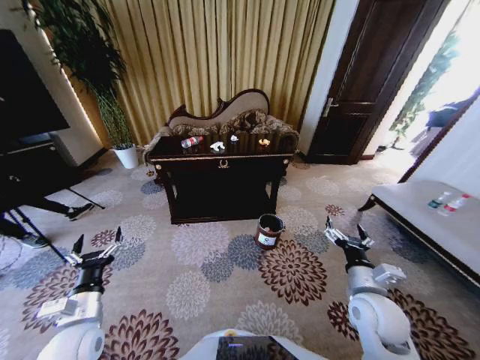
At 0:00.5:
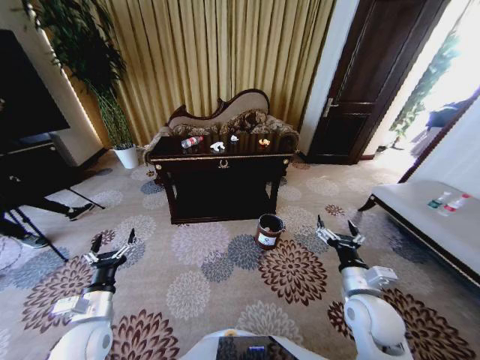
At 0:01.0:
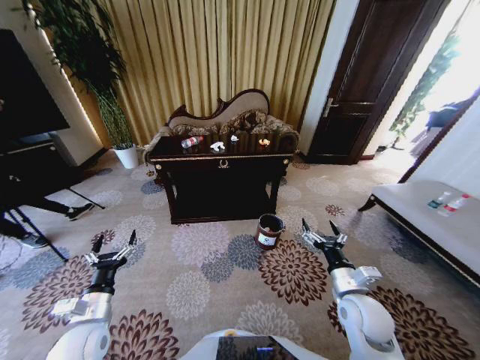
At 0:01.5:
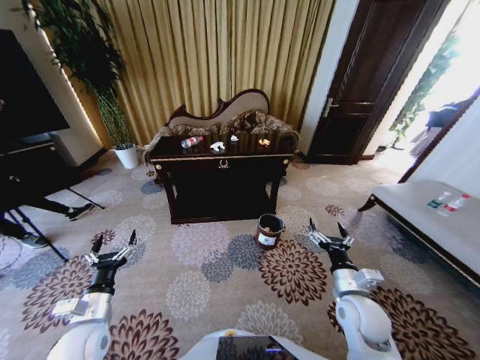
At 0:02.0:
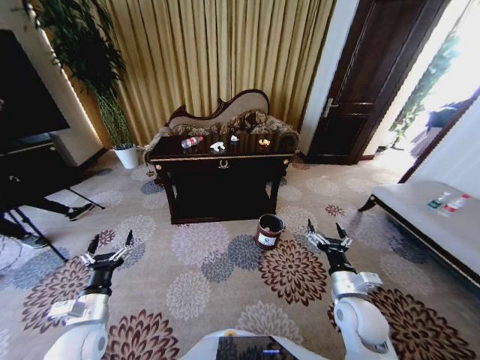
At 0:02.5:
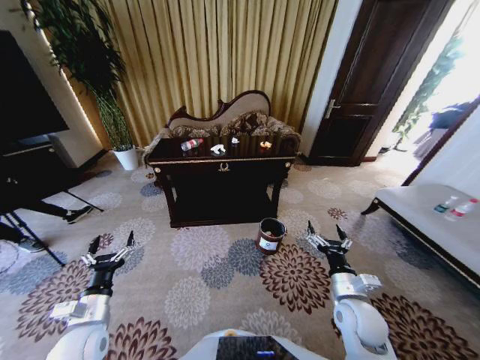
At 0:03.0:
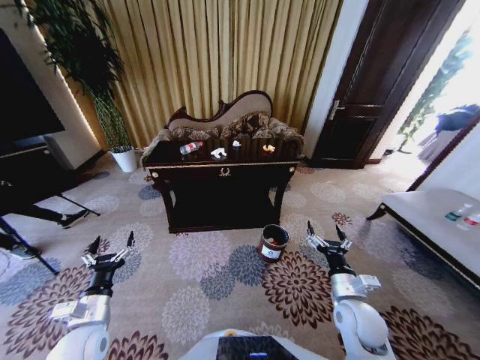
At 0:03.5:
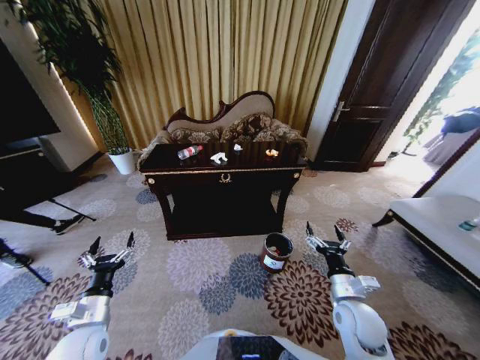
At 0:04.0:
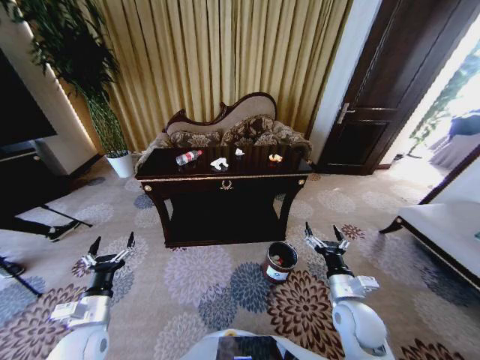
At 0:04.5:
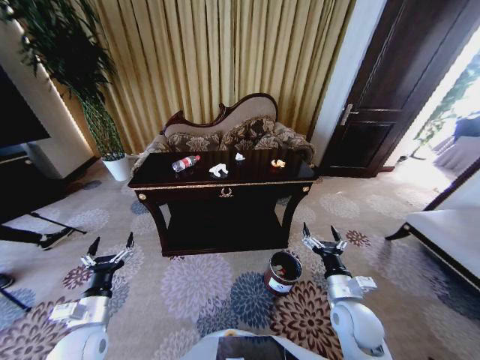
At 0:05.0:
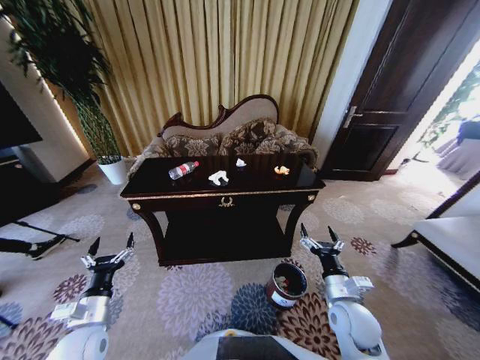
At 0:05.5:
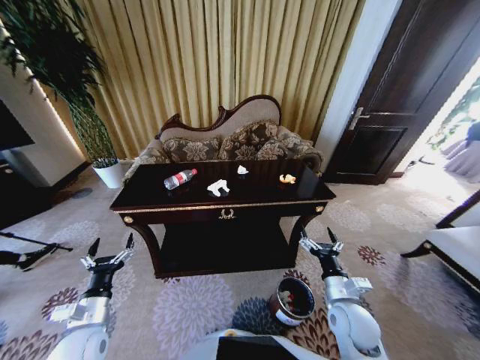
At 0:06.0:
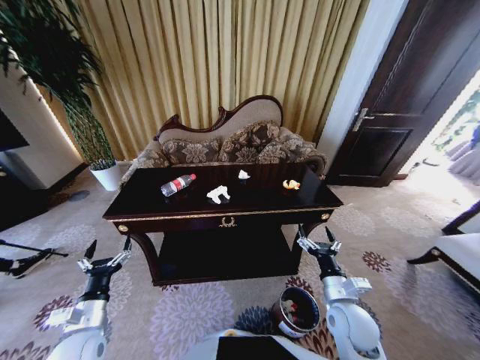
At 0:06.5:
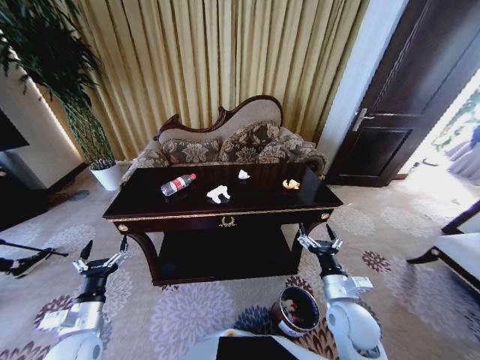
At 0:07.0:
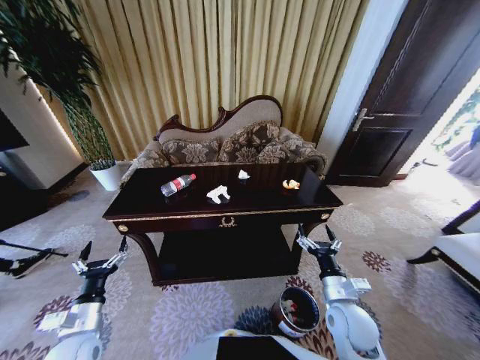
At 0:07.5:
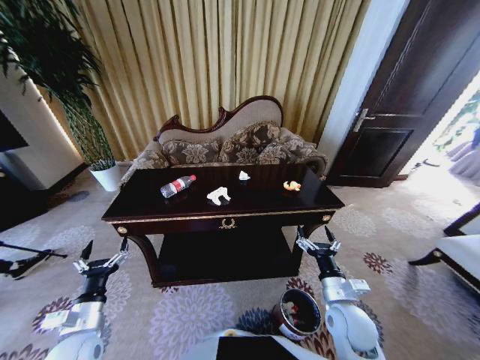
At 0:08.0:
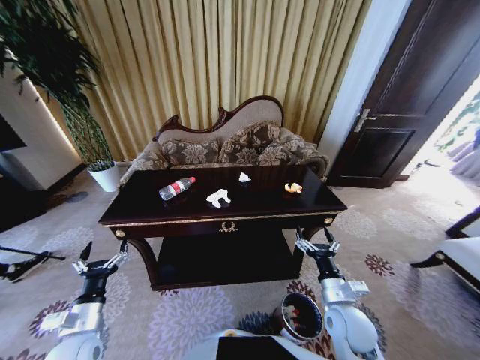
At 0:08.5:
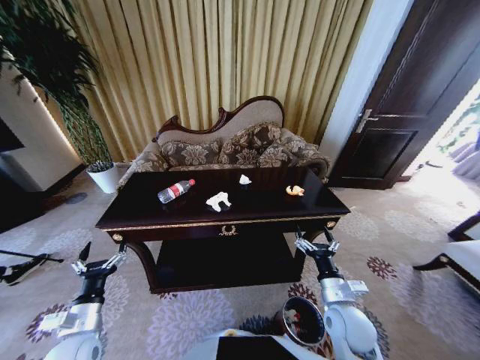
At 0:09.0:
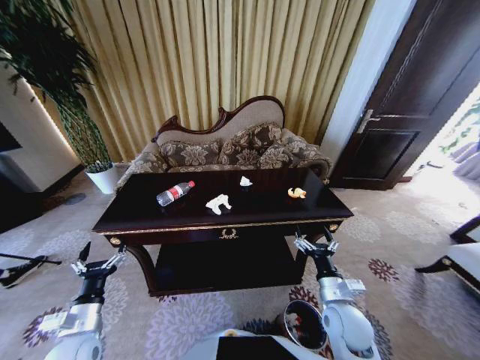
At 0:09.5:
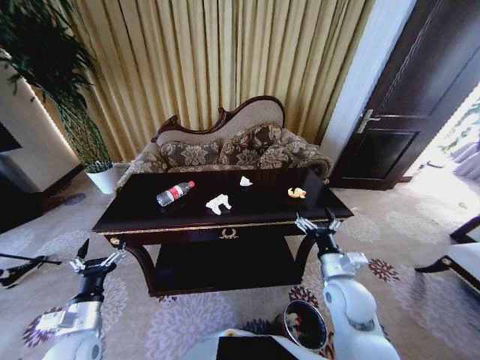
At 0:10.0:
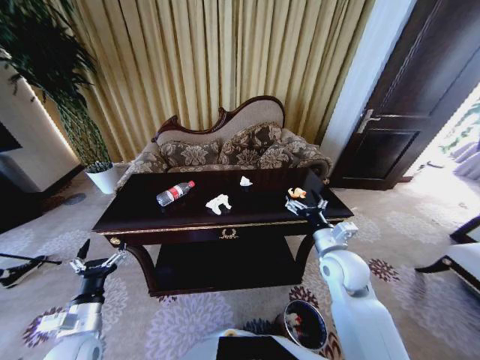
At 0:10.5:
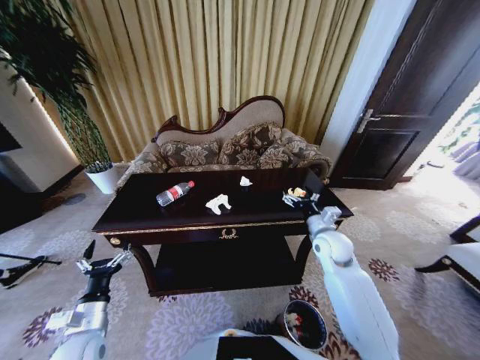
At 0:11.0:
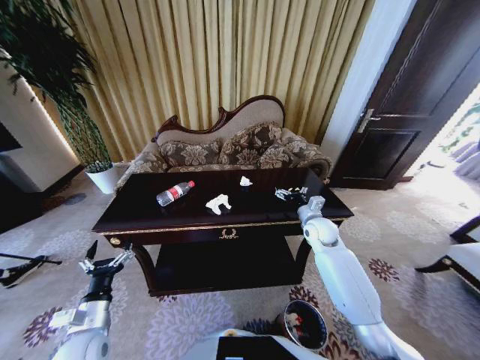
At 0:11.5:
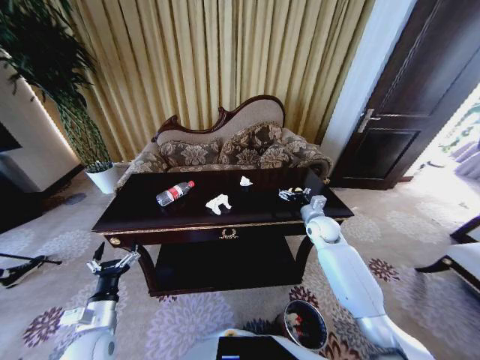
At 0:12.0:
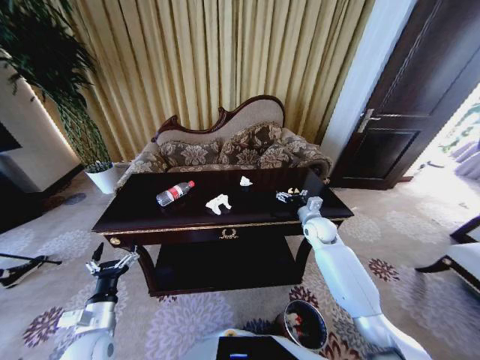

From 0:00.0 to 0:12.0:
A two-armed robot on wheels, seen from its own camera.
Task of the whole recording: Move to the front of the table and place the trash on the table into the trash bin.
From 0:06.0 to 0:08.0: The two grippers keep their place.
From 0:08.0 to 0:10.0: The right gripper goes roughly 15 cm forward and upward.
From 0:10.0 to 0:12.0: The right gripper heads forward and downward, covering about 15 cm.

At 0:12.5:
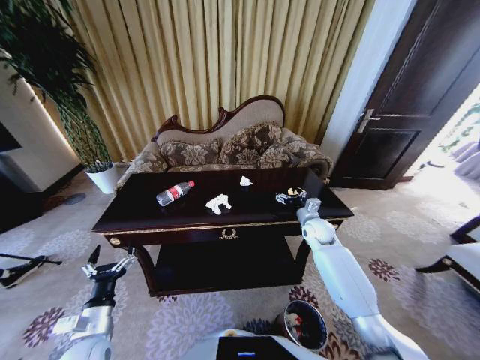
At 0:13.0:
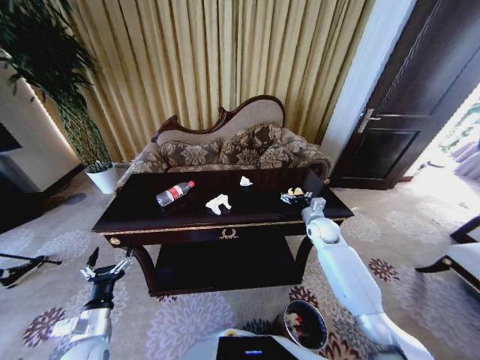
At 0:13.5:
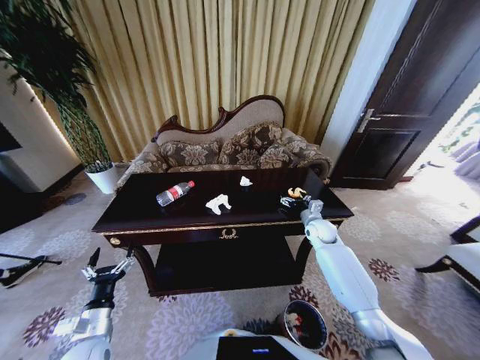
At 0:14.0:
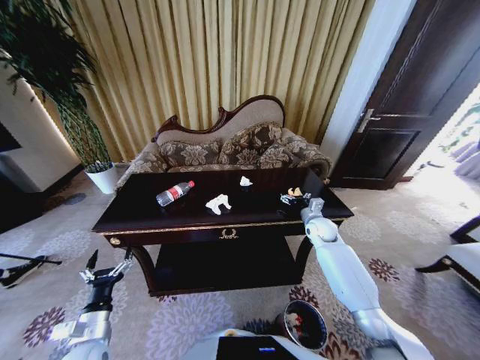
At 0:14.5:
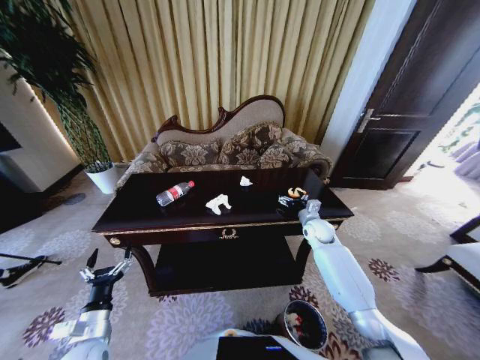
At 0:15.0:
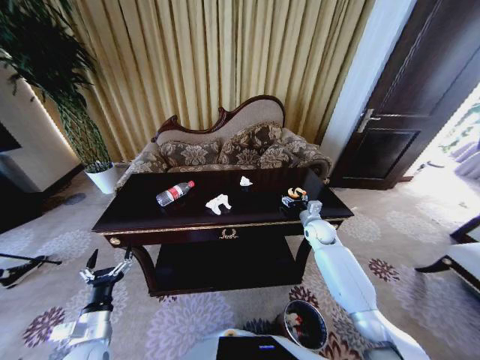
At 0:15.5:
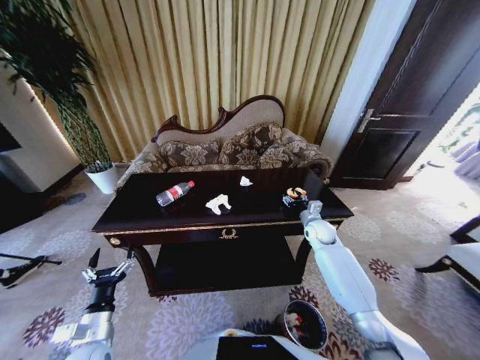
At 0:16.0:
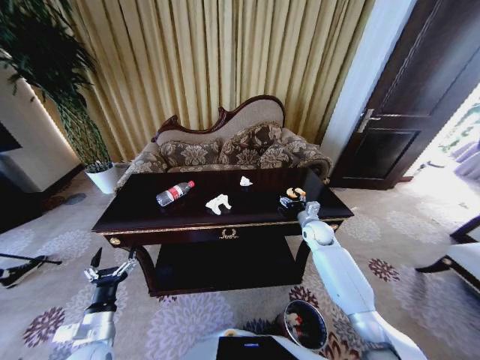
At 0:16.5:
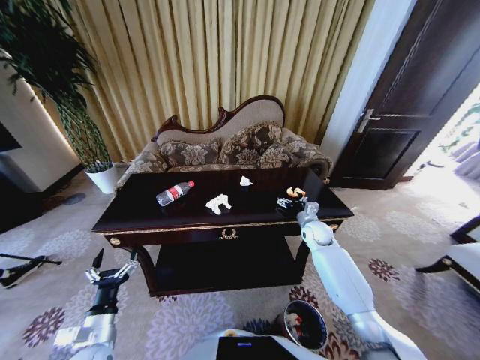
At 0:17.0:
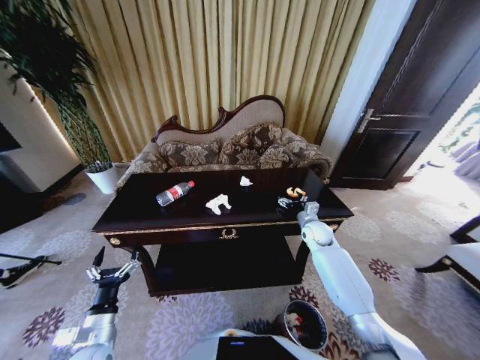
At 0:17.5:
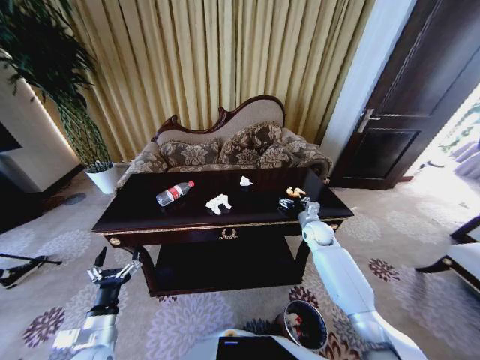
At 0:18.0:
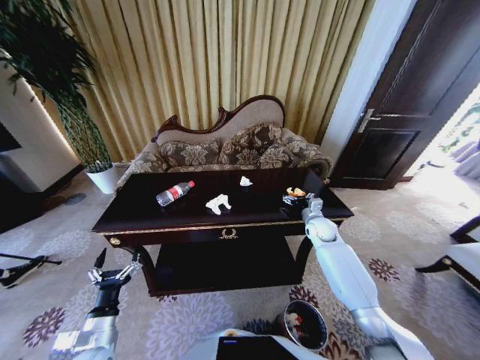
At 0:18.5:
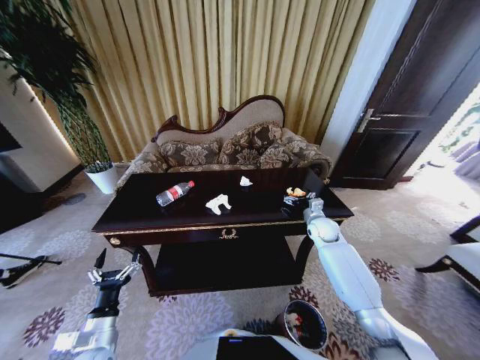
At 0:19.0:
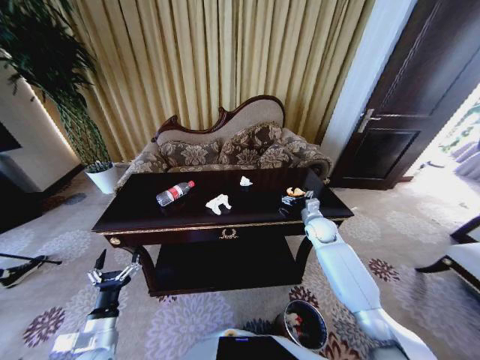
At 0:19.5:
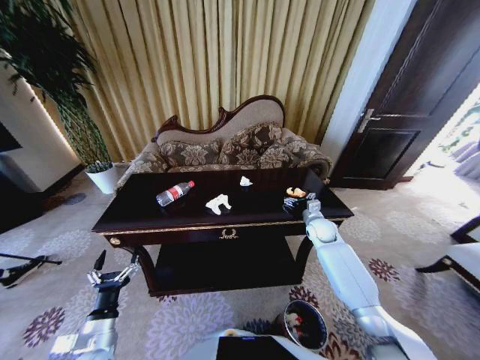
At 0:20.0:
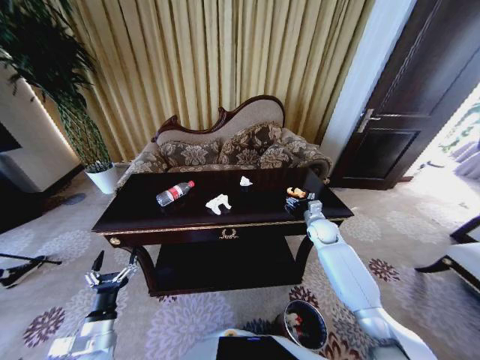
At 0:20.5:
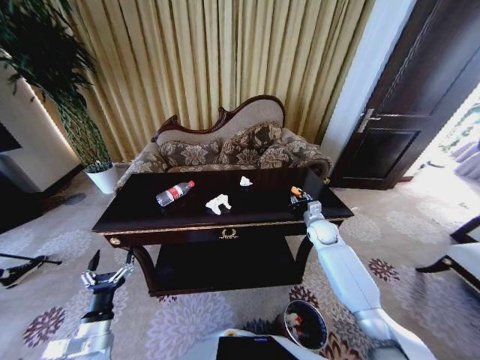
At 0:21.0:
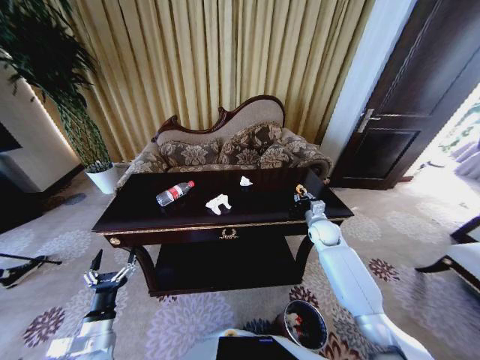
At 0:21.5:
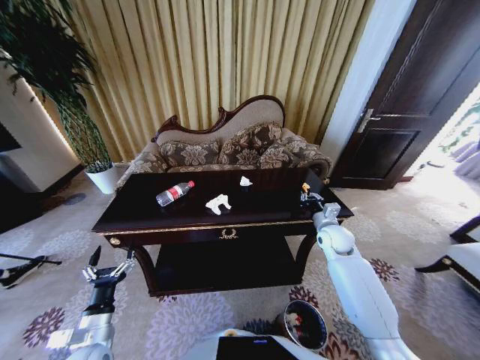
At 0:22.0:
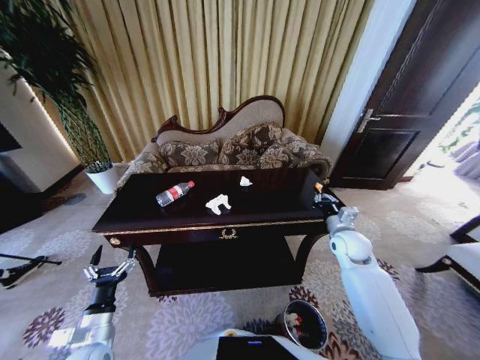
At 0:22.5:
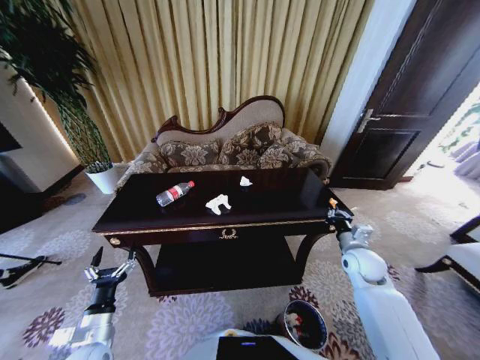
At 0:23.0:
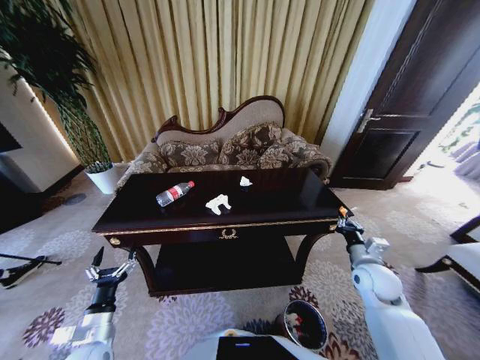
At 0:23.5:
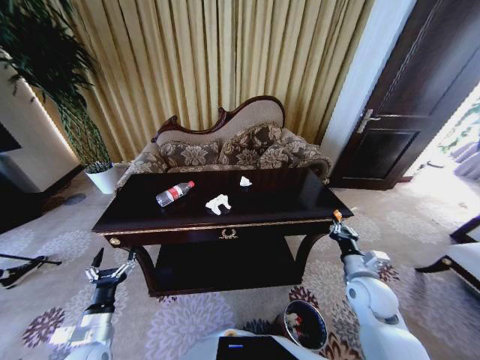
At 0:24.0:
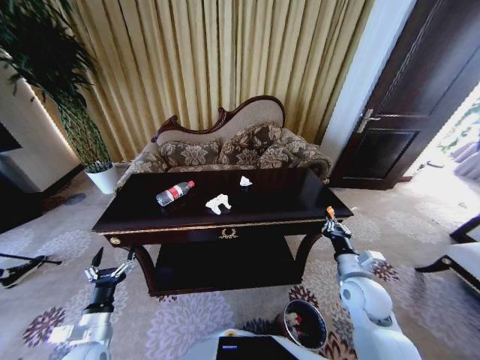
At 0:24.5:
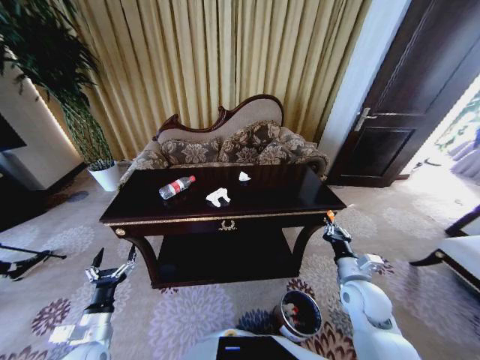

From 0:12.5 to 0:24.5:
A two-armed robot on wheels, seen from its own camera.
Task of the whole recording: Move to the front of the table and place the trash on the table into the trash bin.
From 0:12.5 to 0:18.5: The grippers make only small movements.
From 0:18.5 to 0:20.5: The right gripper closes its fingers.
From 0:20.5 to 0:22.5: The right gripper moves backward, about 15 cm.
From 0:22.5 to 0:24.5: The right gripper heads backward and to the left, covering some 10 cm.

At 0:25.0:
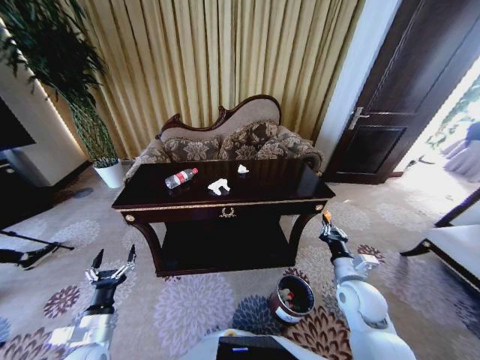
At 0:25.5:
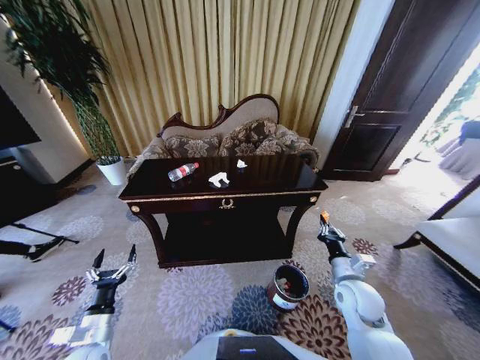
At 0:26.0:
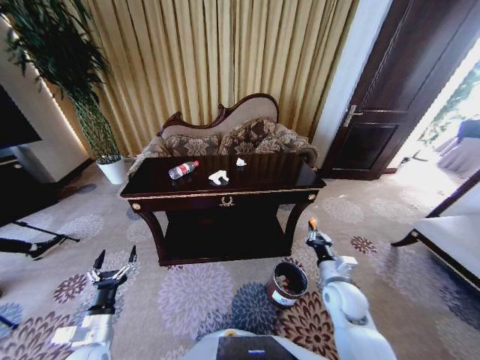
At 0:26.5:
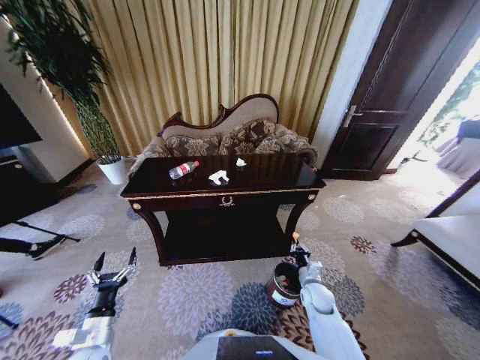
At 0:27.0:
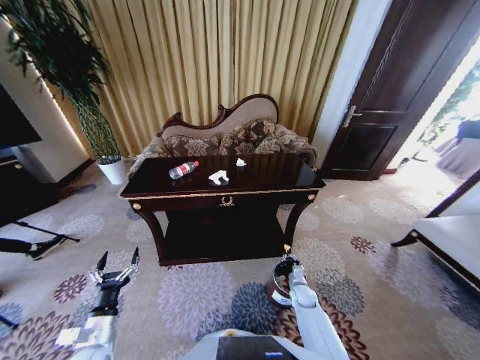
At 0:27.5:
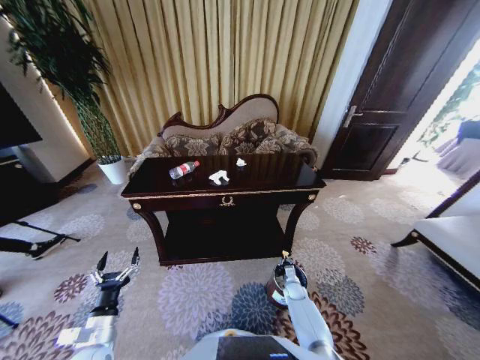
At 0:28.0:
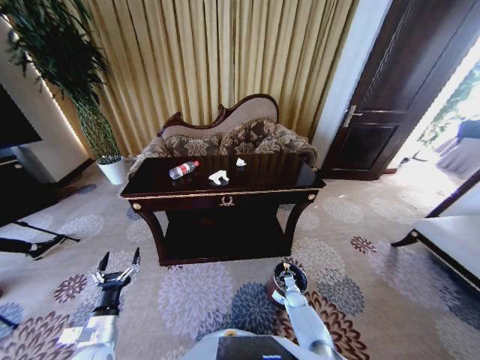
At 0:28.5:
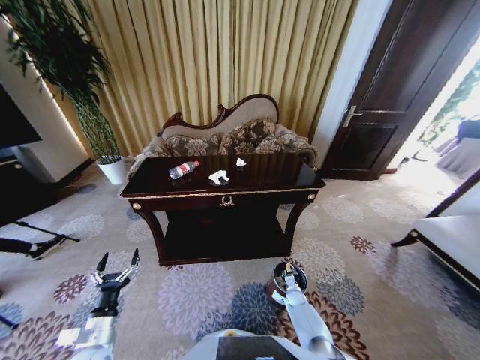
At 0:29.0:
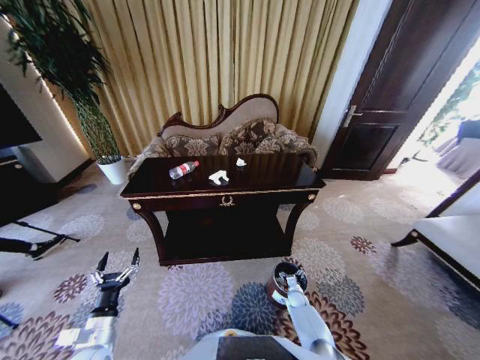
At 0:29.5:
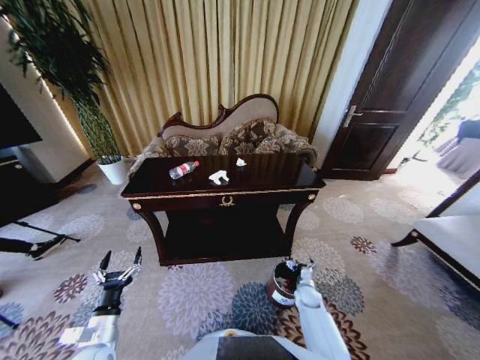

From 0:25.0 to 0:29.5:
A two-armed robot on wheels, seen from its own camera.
Task of the whole recording: Move to the front of the table and place the trash on the table into the trash bin.
From 0:25.0 to 0:27.0: The right gripper shifts about 25 cm downward.
From 0:27.0 to 0:29.5: The right gripper travels downward and back again, approximately 10 cm each way, and opens.
